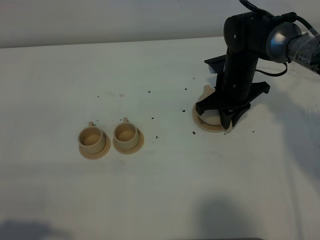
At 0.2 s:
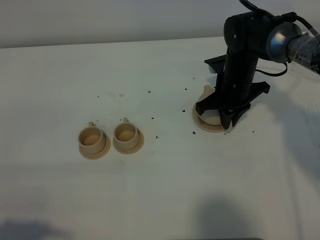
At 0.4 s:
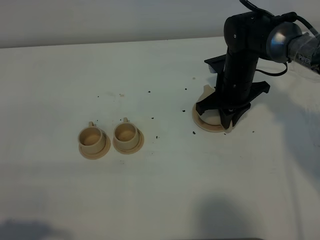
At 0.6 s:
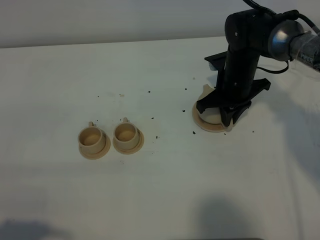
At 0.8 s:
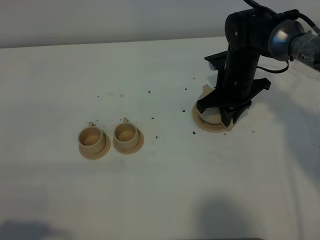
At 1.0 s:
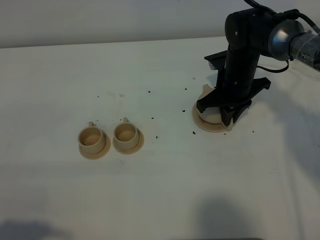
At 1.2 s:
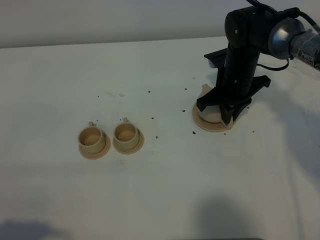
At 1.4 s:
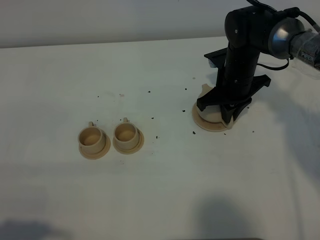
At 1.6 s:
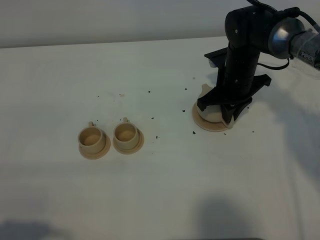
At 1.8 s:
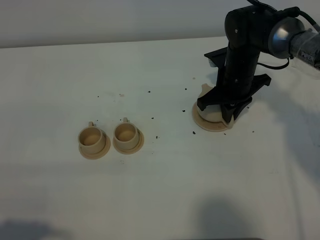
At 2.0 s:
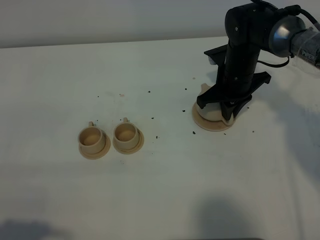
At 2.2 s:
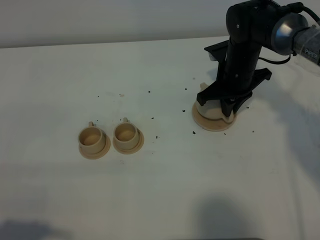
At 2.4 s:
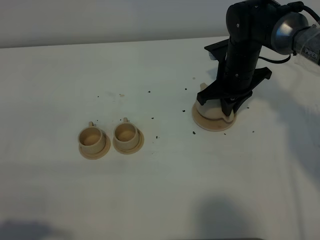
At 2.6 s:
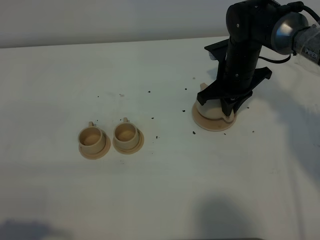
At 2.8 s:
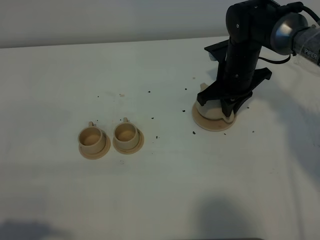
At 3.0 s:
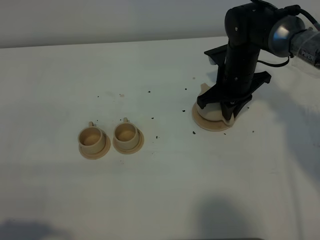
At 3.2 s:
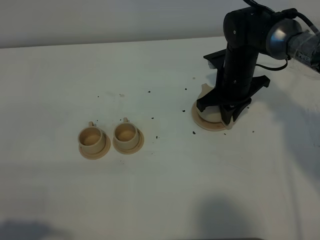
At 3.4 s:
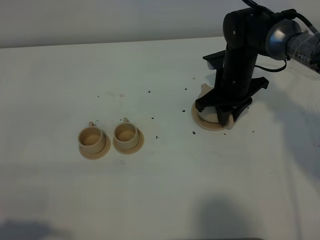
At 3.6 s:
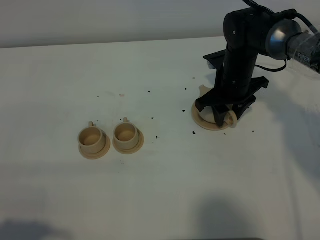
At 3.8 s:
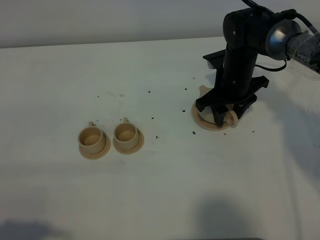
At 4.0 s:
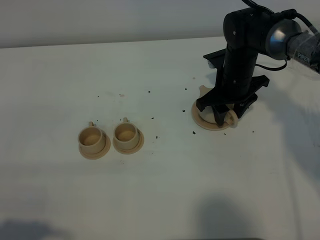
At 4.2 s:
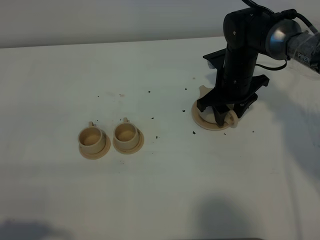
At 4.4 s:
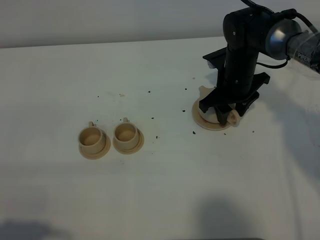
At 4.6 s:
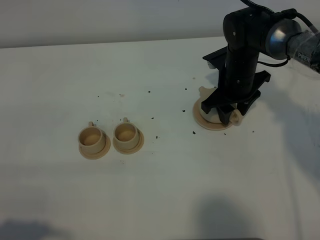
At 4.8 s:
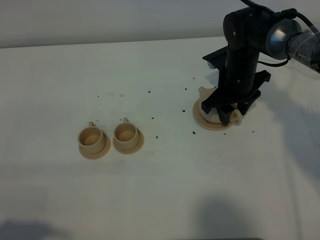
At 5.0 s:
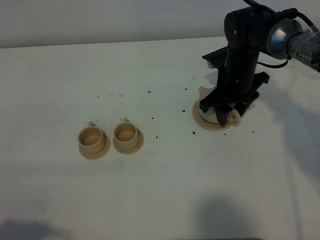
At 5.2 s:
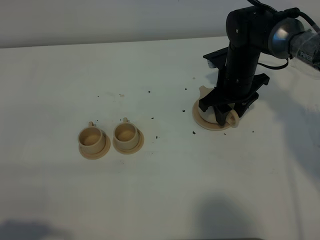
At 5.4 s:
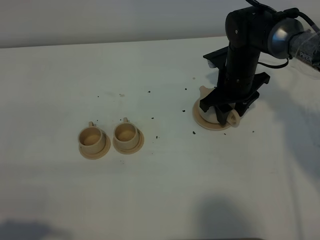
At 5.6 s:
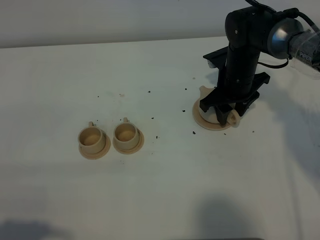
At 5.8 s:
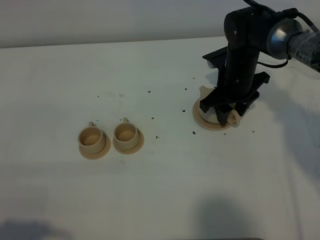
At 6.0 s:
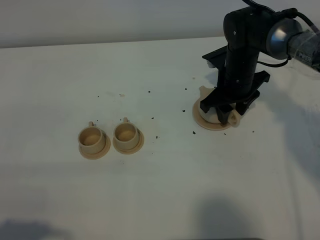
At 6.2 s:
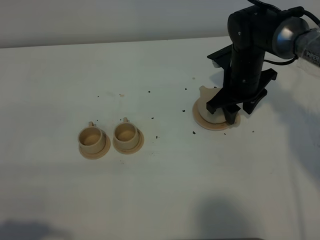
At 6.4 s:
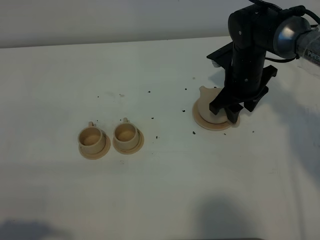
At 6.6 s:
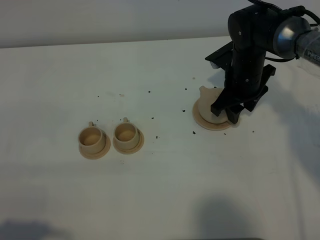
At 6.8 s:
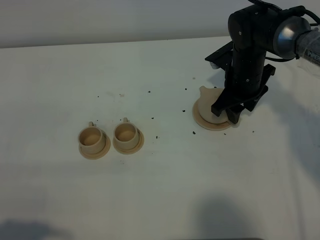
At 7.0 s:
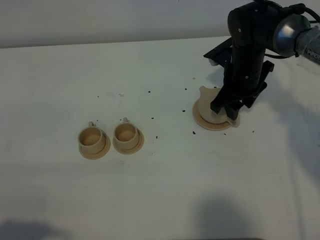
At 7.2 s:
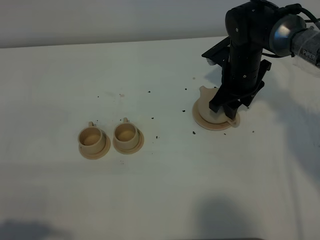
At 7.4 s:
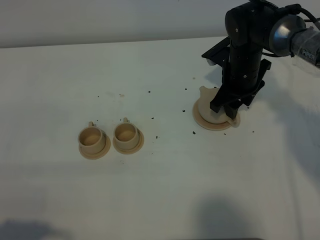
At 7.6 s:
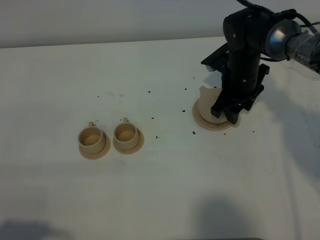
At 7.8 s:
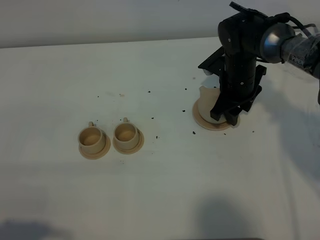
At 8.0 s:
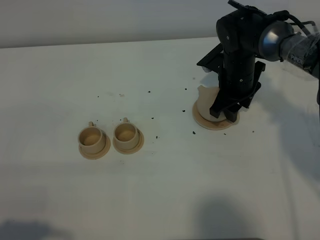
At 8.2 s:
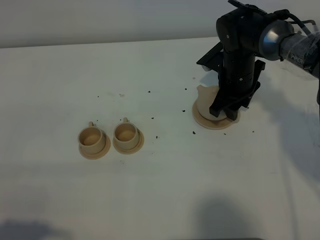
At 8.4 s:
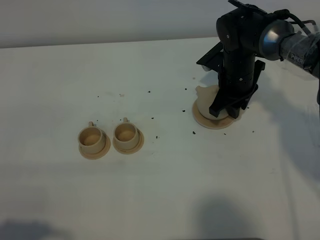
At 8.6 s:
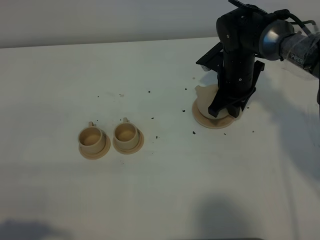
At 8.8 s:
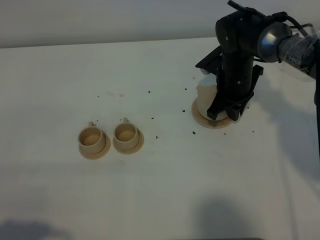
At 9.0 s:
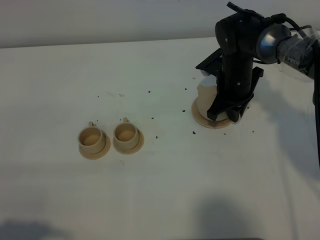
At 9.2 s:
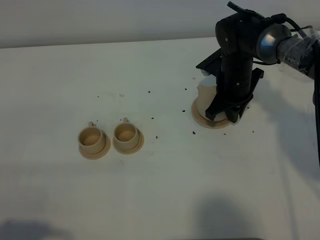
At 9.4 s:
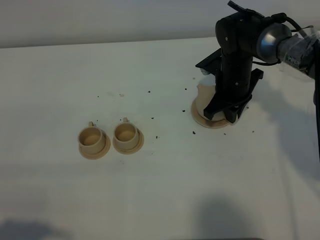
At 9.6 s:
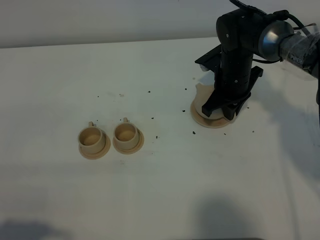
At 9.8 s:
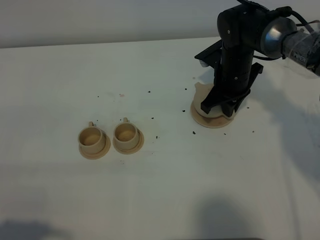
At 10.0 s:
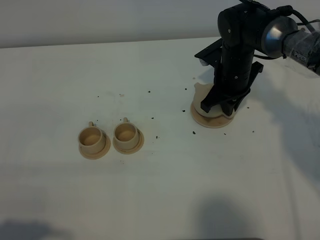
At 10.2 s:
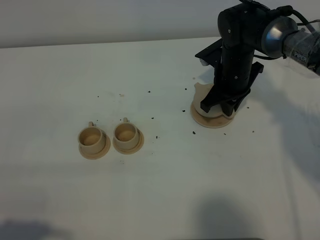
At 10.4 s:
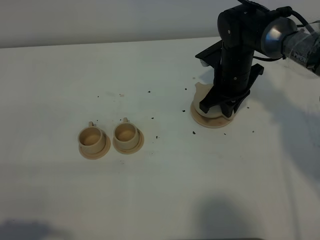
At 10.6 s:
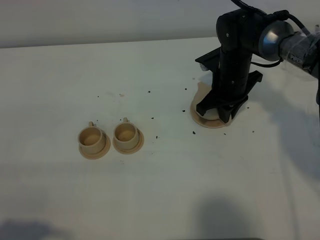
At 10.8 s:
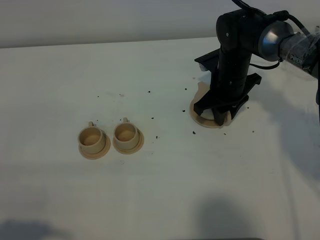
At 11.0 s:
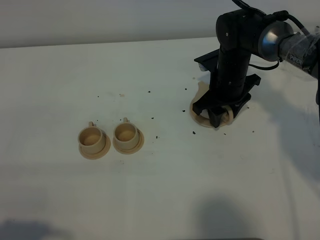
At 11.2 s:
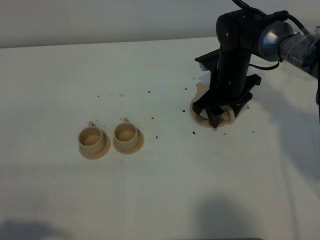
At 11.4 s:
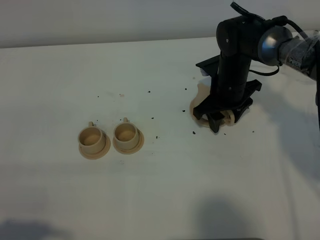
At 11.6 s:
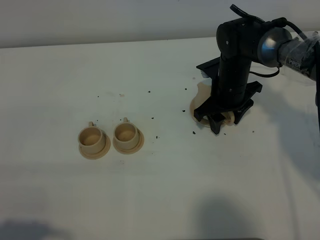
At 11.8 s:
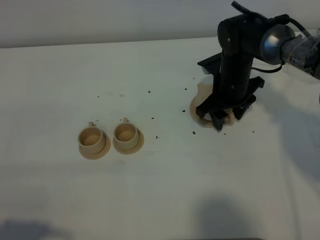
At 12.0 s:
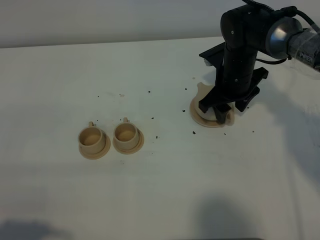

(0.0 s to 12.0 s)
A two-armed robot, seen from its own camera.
Task of the whole recording: grasp the brown teapot and pour the tea into the two brown teacups one by one, put the brown teapot back in its original place.
0.0 s - 1.6 s: Both grippers stay about where they are.
1.6 s - 3.0 s: Neither gripper changes place.
3.0 s - 4.4 s: The right gripper opens up.
4.4 s - 6.0 s: Both grippers stay about where they are.
6.0 s - 7.6 s: The grippers stay close to where they were, moving slightly.
7.6 s - 9.0 s: The right gripper closes its fingers.
9.0 s - 10.4 s: The grippers make only small movements.
10.4 s - 12.0 s: The right gripper opens.

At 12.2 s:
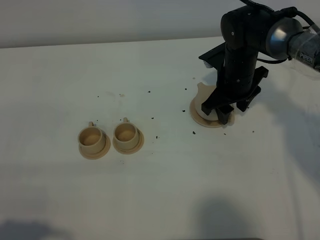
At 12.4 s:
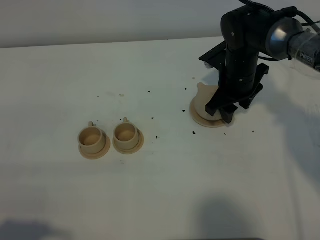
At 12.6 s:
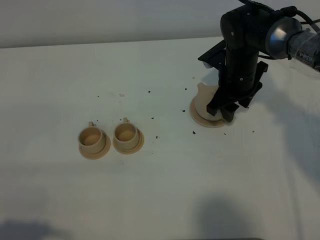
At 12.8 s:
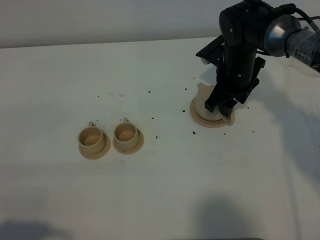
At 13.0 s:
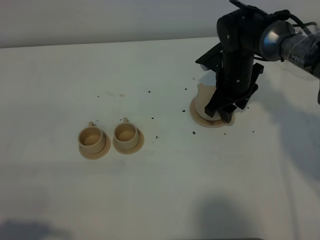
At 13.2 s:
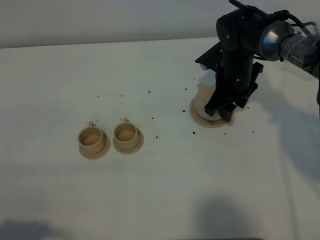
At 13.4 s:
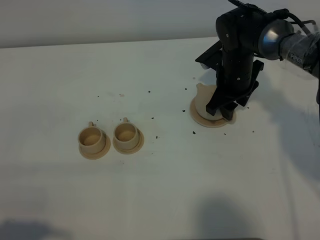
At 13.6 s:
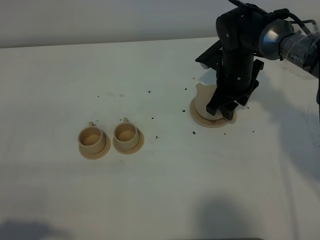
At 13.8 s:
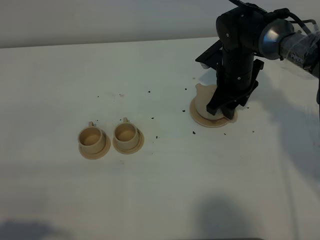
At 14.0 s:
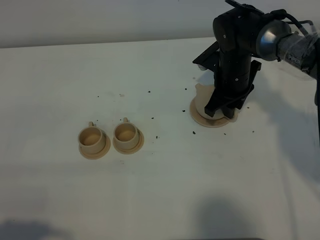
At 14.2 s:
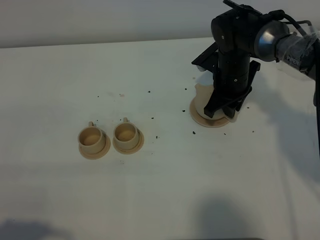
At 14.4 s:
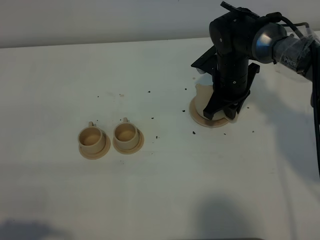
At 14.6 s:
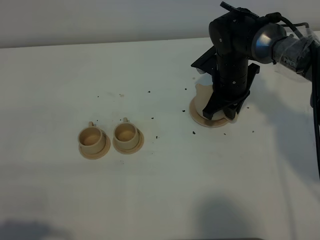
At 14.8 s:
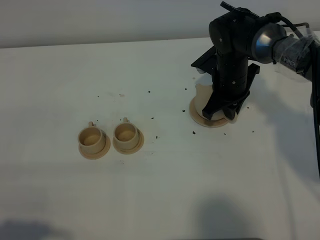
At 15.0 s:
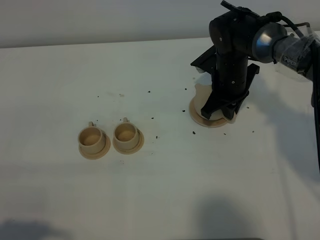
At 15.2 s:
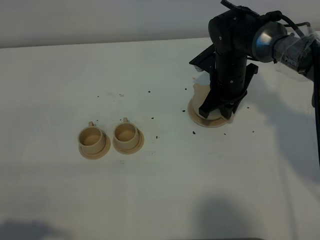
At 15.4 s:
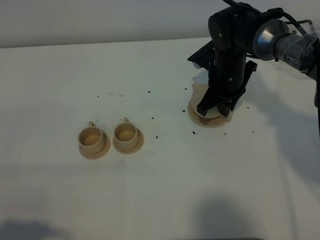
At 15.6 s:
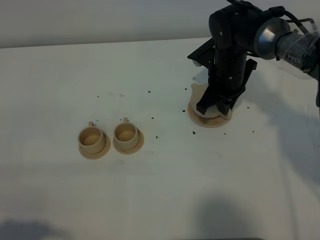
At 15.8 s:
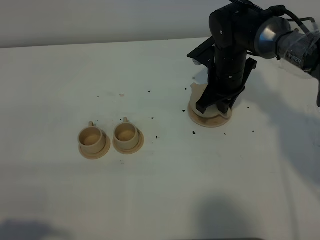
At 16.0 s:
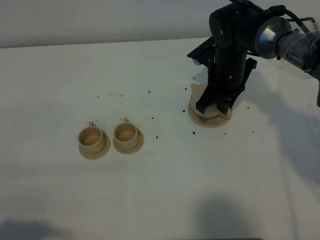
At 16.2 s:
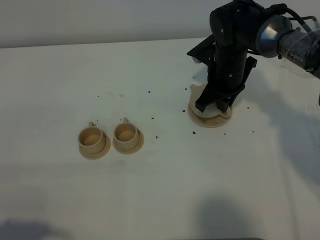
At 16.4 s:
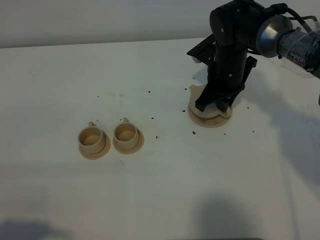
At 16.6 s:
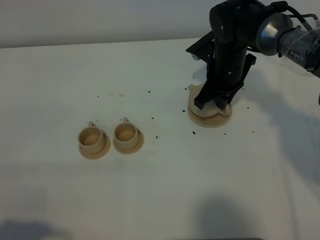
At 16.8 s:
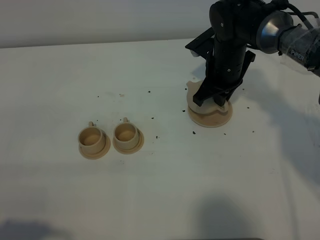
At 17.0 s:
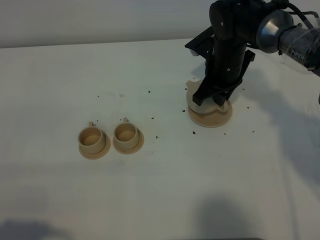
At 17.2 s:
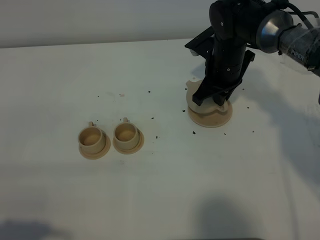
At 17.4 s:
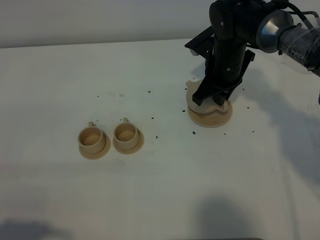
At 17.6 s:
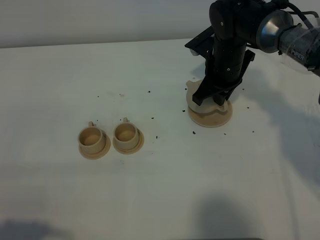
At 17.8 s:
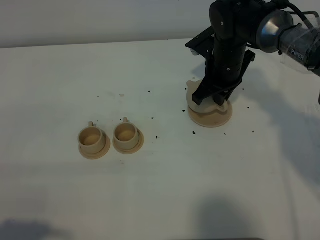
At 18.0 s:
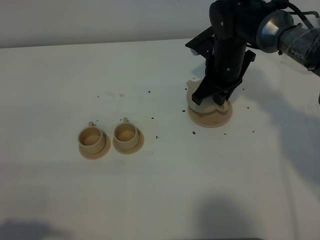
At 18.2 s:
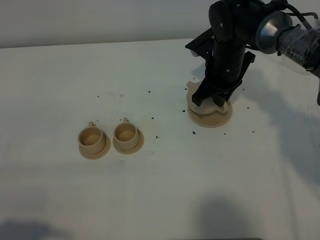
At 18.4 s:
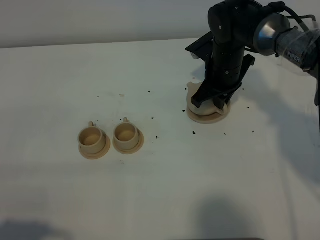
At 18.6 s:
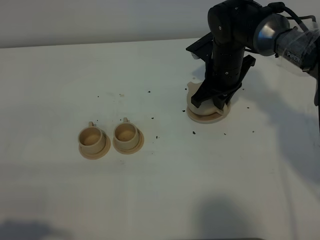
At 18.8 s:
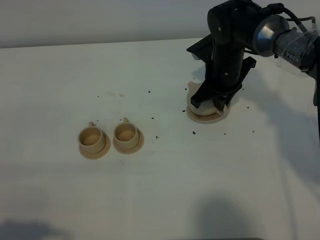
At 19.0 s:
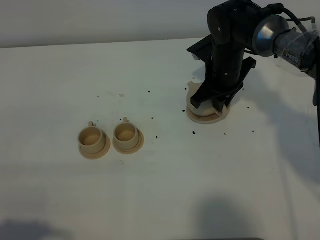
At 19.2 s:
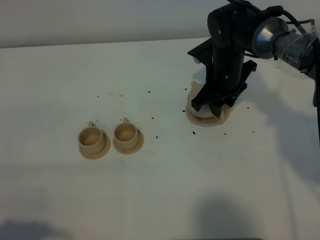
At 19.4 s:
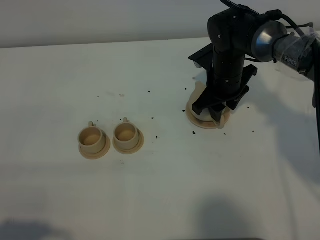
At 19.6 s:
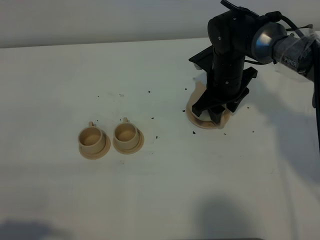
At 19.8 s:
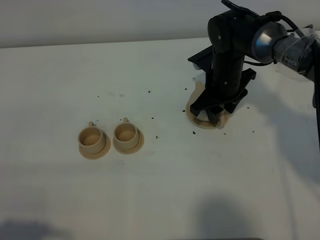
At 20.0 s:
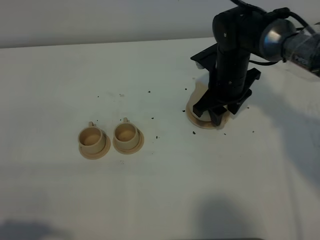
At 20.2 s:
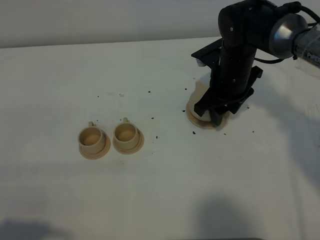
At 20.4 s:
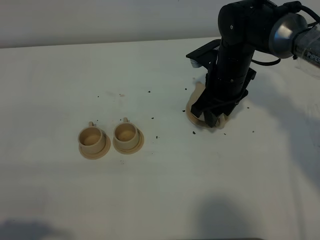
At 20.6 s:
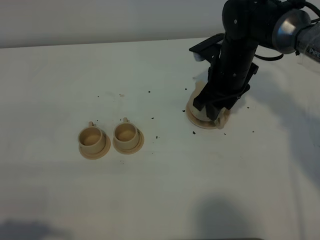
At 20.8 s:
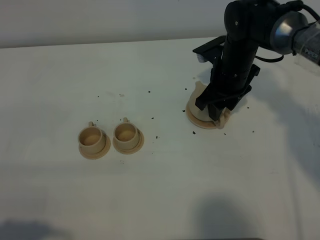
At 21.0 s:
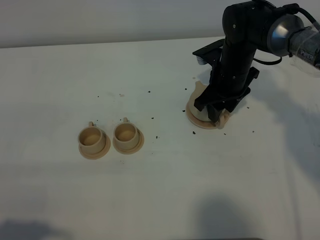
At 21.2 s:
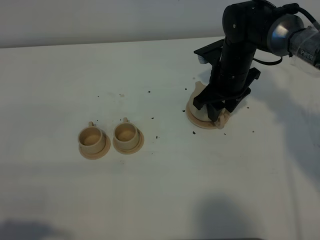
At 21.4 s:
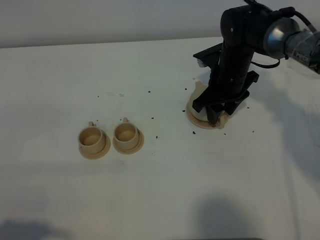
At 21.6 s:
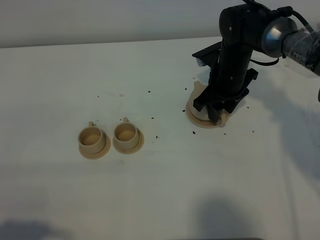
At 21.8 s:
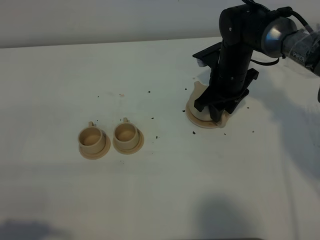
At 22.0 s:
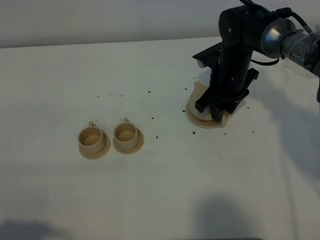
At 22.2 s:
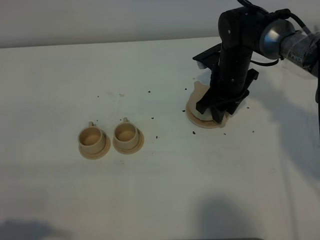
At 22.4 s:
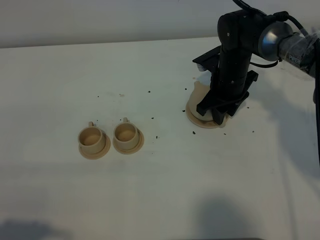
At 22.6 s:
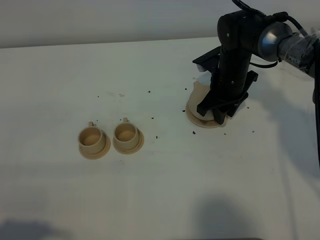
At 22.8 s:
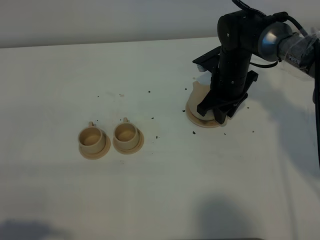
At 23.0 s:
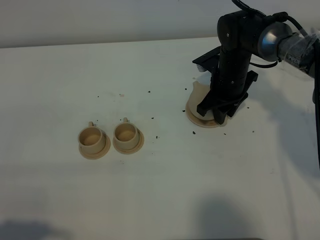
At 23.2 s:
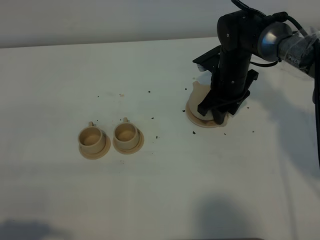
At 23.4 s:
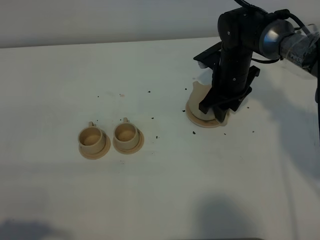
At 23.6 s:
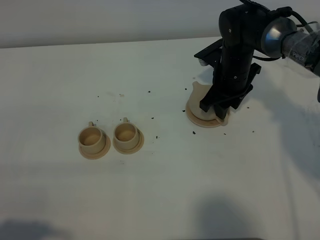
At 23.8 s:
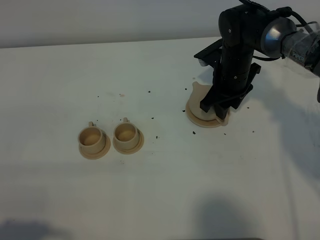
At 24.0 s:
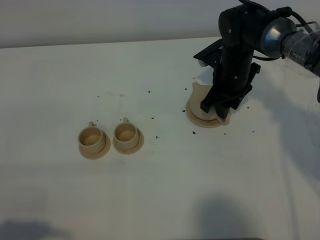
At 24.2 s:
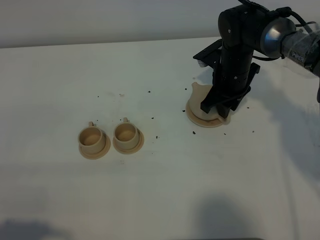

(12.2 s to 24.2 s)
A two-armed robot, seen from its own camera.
Task of the whole recording: grasp the brown teapot and pour the tea into the two brown teacups one by one, put the brown teapot back in its original place.
12.2 s - 13.8 s: The grippers move only a little.
13.8 s - 15.2 s: The right gripper closes up.
15.2 s - 16.6 s: There are only small adjustments of the grippers.
16.6 s - 18.2 s: The two grippers keep their place.
18.2 s - 19.8 s: The right gripper opens its fingers.
19.8 s - 21.2 s: The grippers move only a little.
21.2 s - 22.6 s: The right gripper closes up.
22.6 s - 24.2 s: Both grippers stay put.
